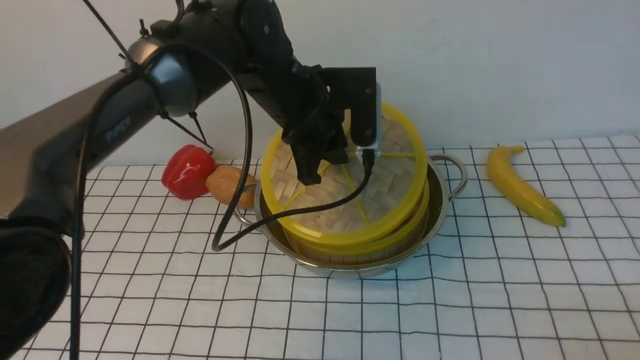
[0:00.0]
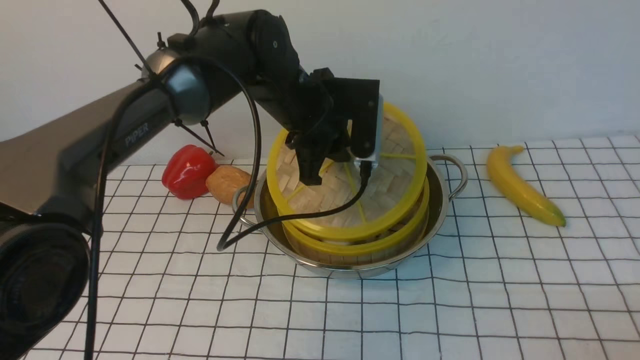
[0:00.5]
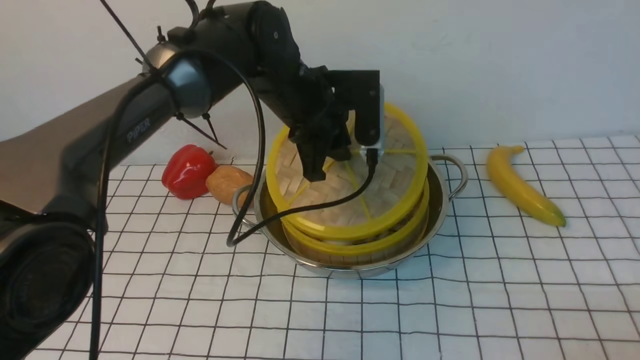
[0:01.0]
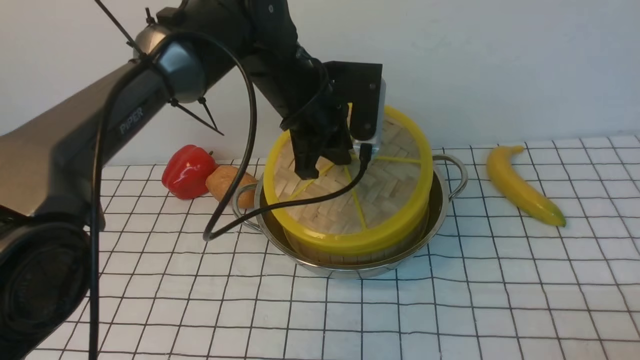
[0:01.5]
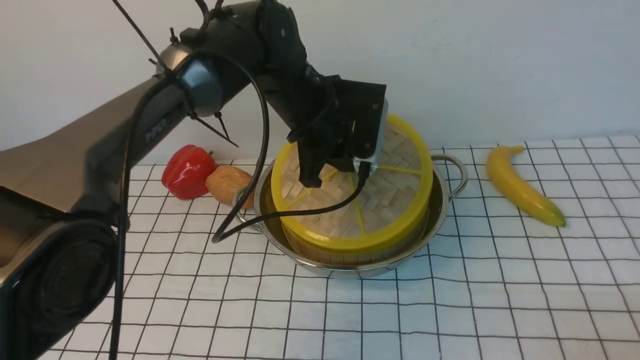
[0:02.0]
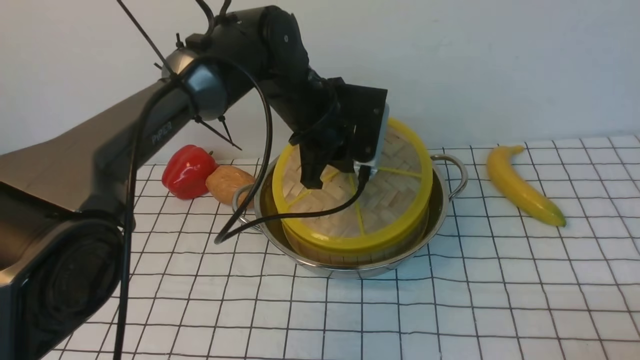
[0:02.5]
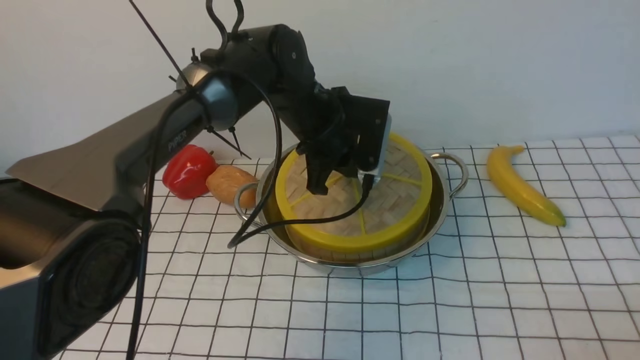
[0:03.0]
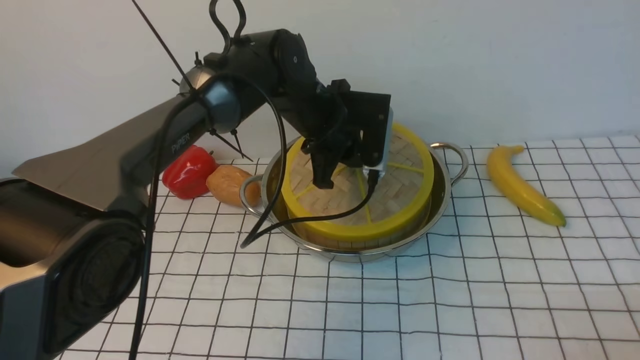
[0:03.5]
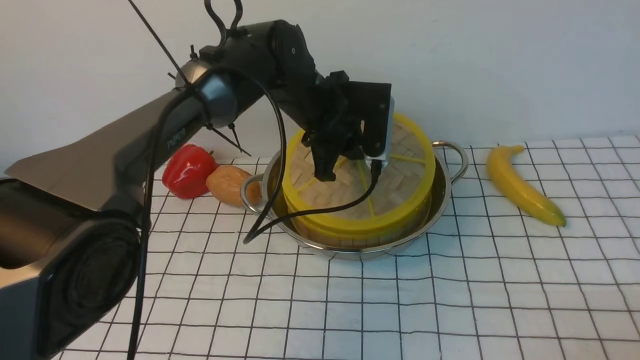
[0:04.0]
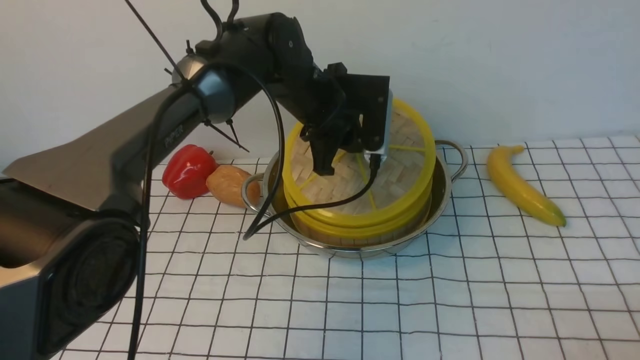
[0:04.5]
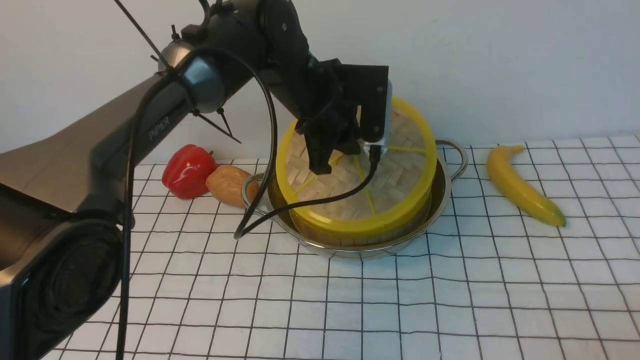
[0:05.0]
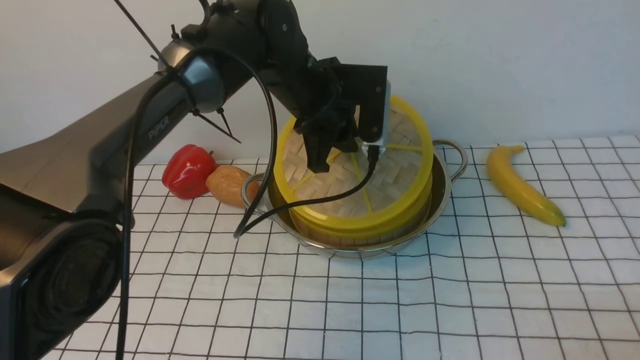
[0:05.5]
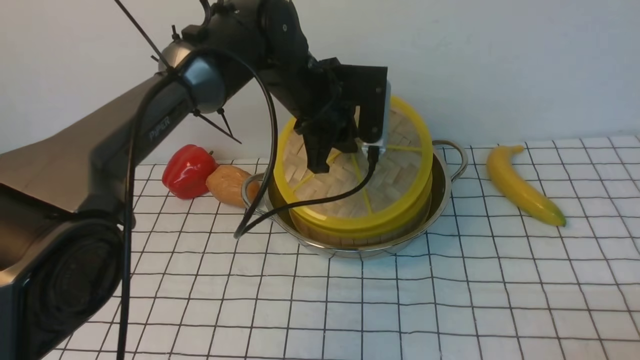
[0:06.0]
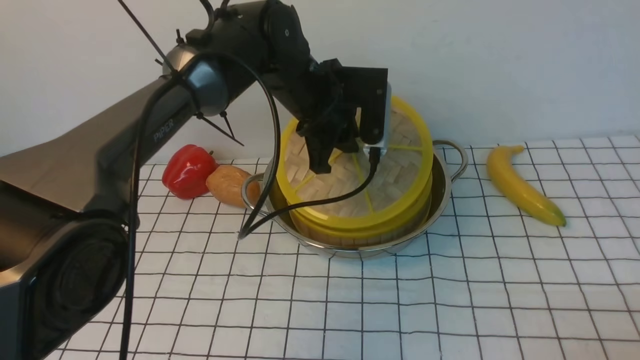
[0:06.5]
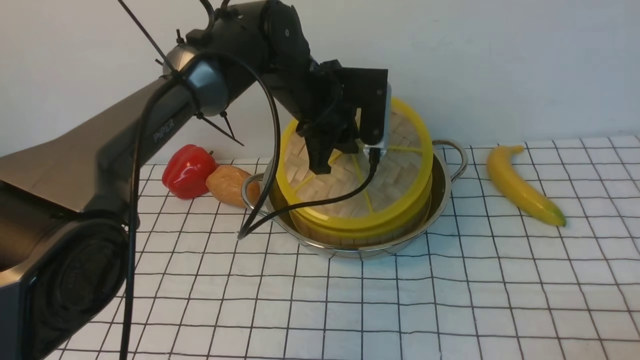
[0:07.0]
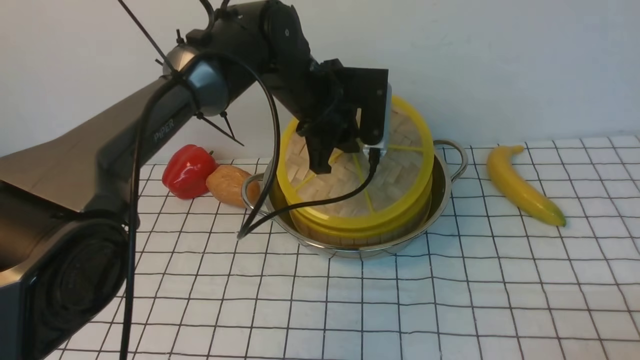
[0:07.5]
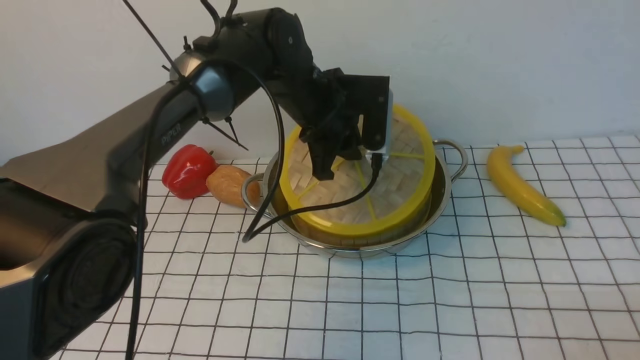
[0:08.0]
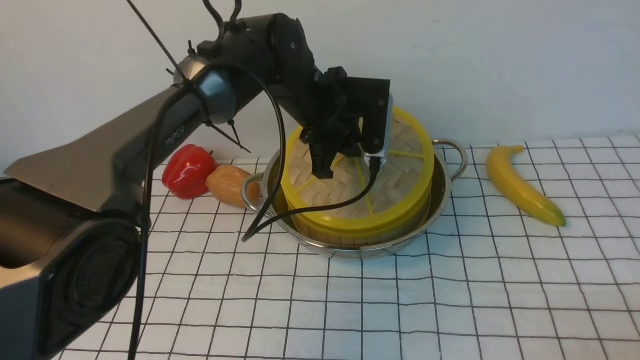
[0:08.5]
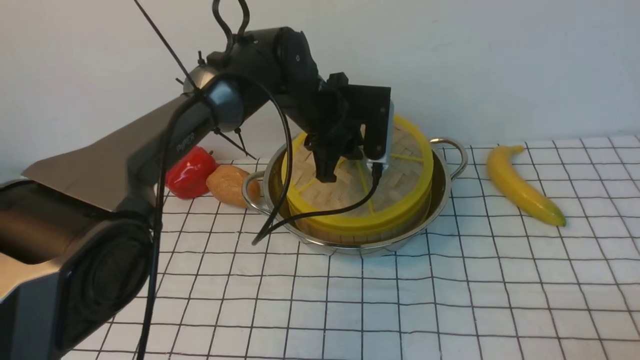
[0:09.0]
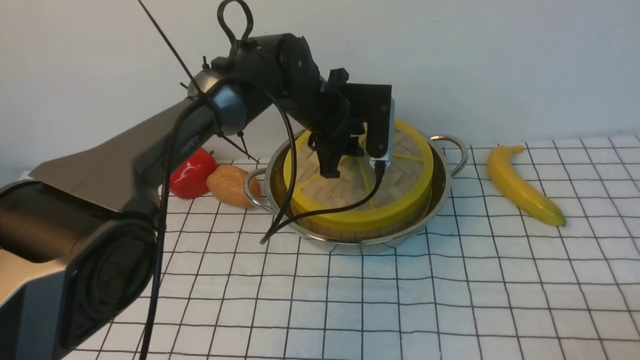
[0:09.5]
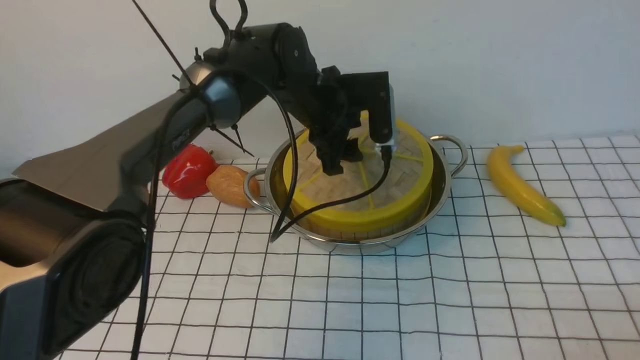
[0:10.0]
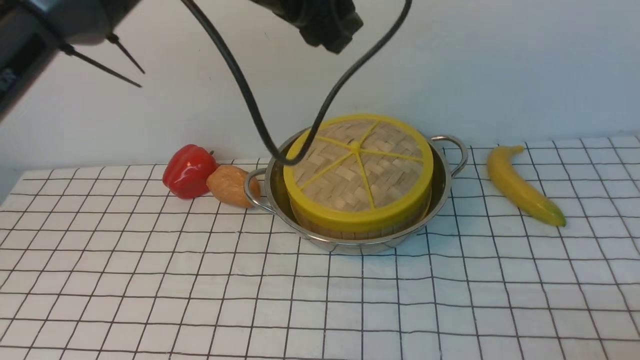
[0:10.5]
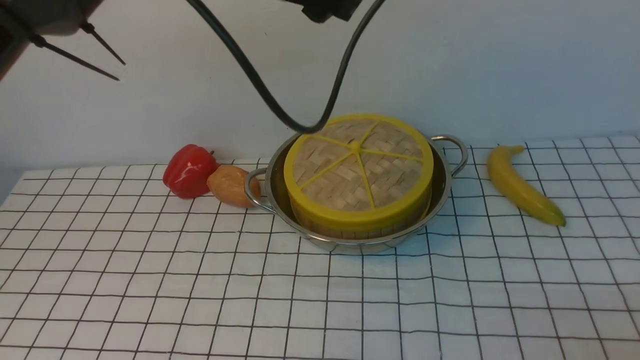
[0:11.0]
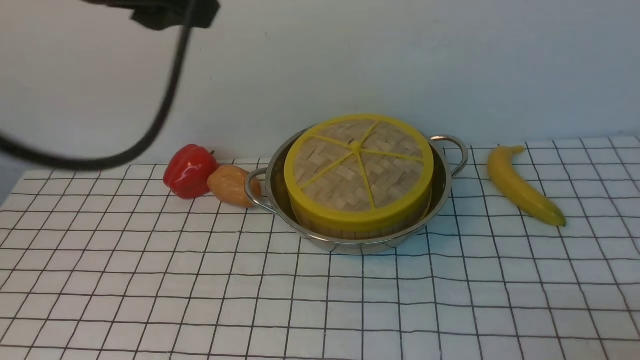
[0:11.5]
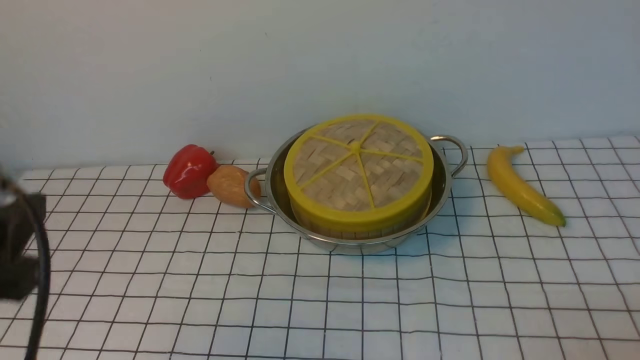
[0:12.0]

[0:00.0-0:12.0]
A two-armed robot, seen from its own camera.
Task of the whole recording: place the steamer in the pot on the white tablecloth, and put the lid on the steamer.
Step, 0:00.0 to 0:10.0: use the left arm to place the steamer lid on the steamer.
0:00.0 to 0:02.0: There are only small adjustments of the grippers.
0:02.0 to 0:06.0: There are only small adjustments of the grippers.
0:06.0 to 0:08.0: The two grippers keep their place.
0:08.0 to 0:10.0: The left gripper opens its fingers.
0:10.0 to 0:12.0: The left gripper heads backward and to the left, covering roughly 40 cm.

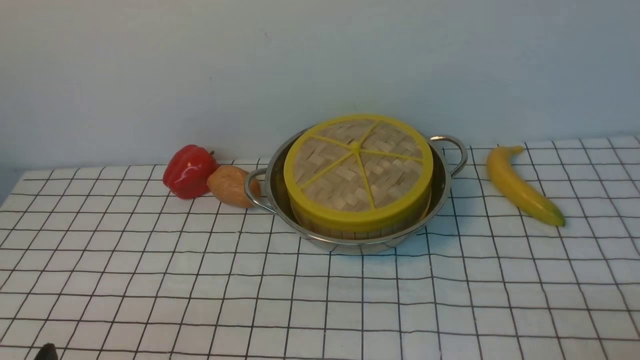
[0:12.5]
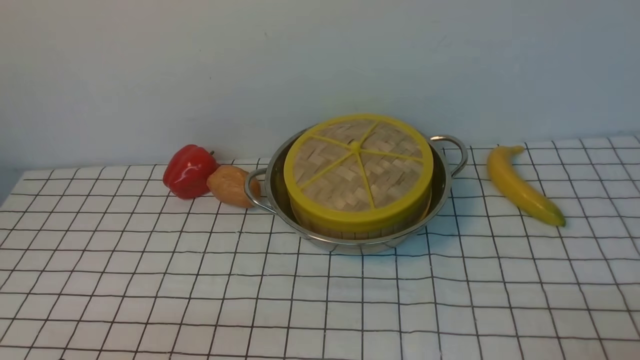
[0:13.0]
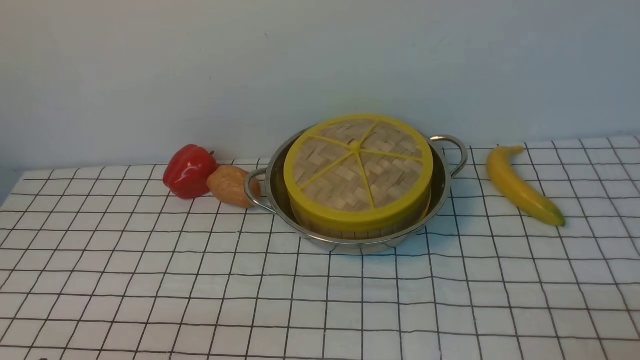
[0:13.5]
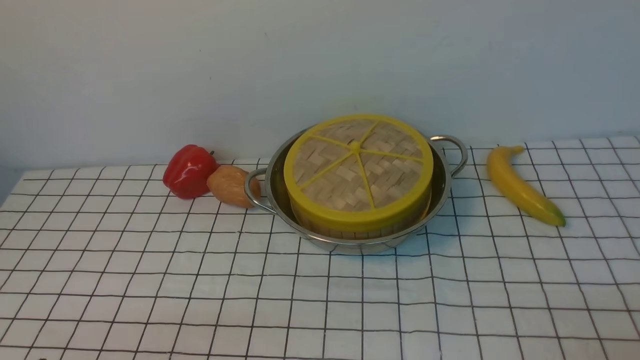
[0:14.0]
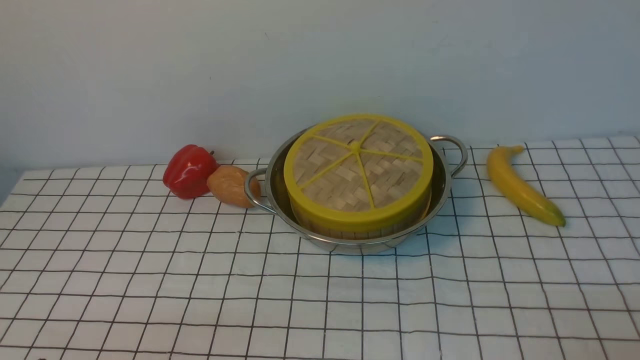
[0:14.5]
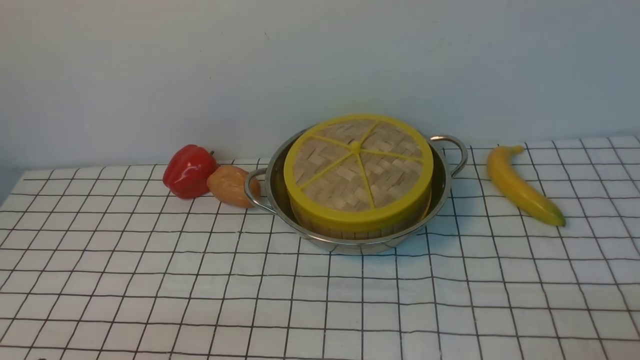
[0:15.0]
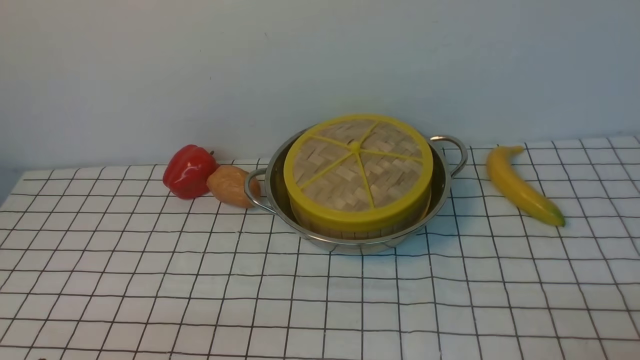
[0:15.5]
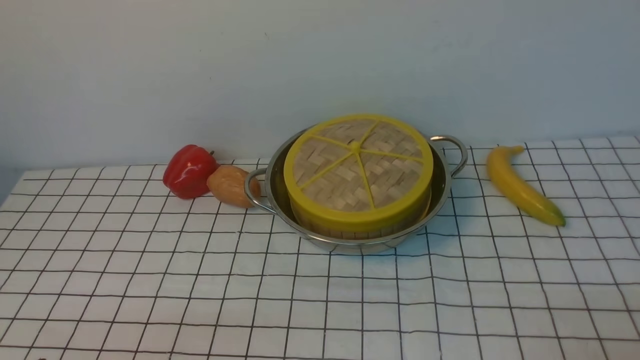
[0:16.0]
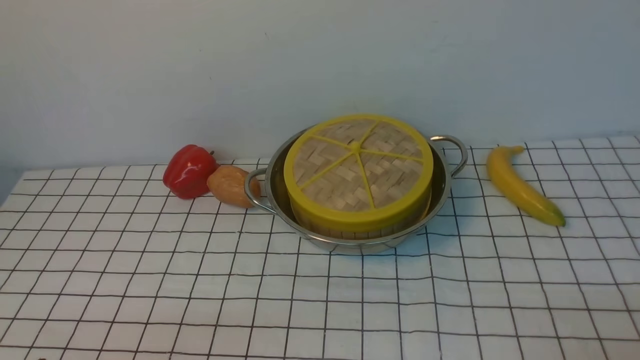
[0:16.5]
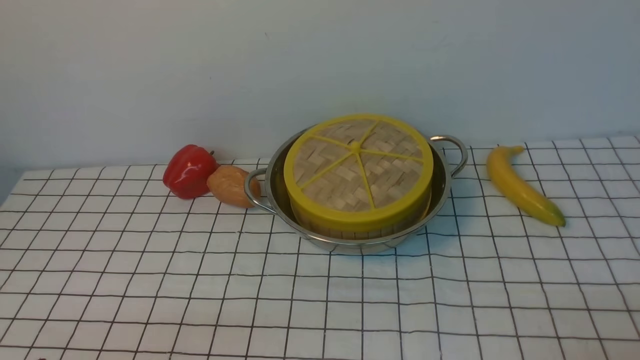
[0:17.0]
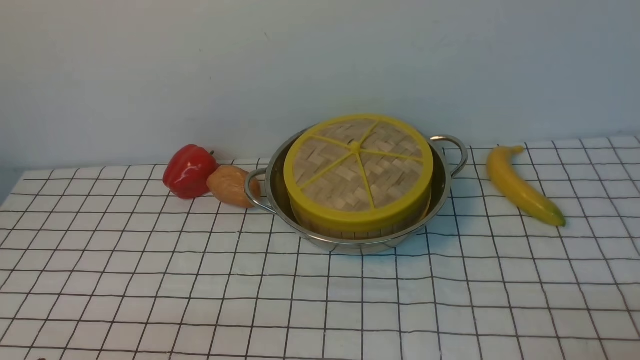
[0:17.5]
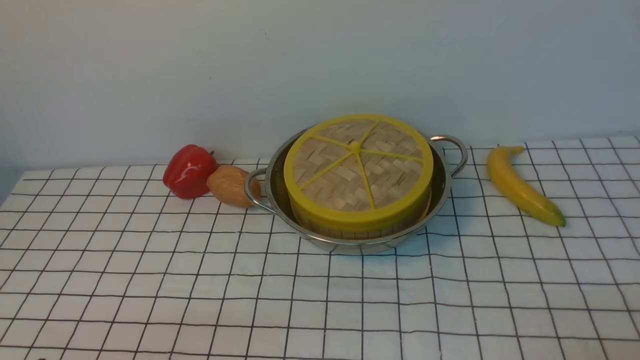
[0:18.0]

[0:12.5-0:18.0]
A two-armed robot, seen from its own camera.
Task of the whole recording: place the steamer in the pot on the white tablecloth, and put the lid on the steamer.
0:14.5 to 0:18.0: Neither gripper changes place.

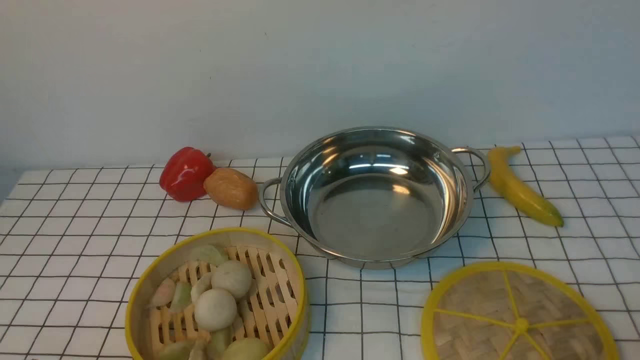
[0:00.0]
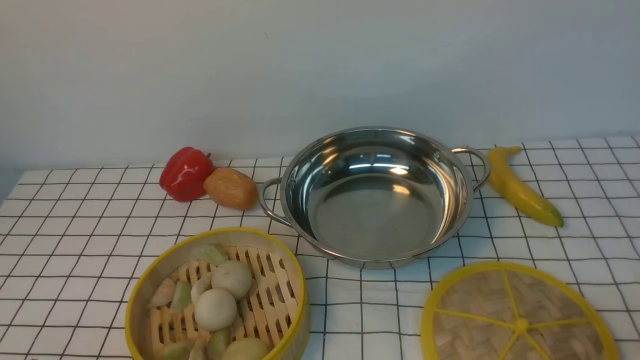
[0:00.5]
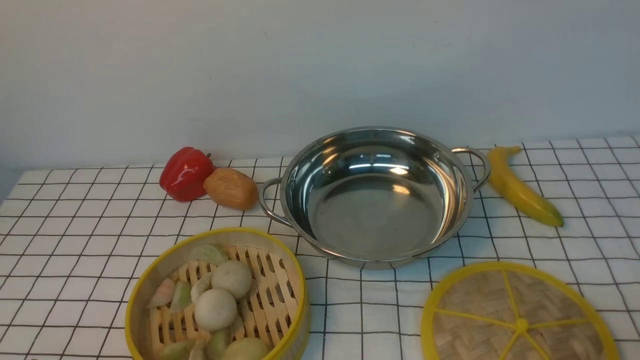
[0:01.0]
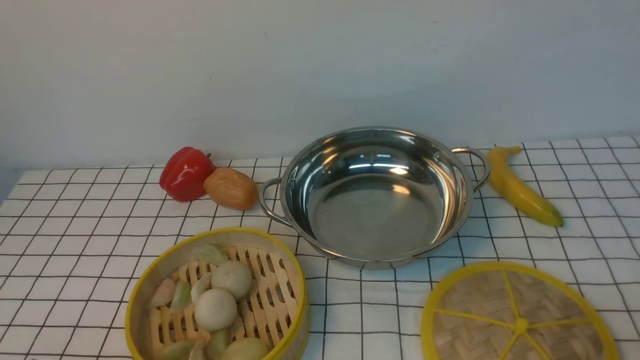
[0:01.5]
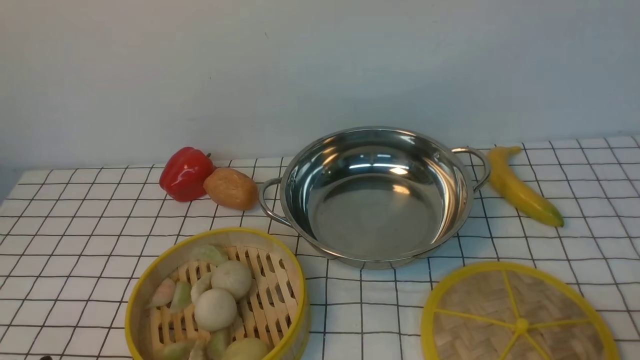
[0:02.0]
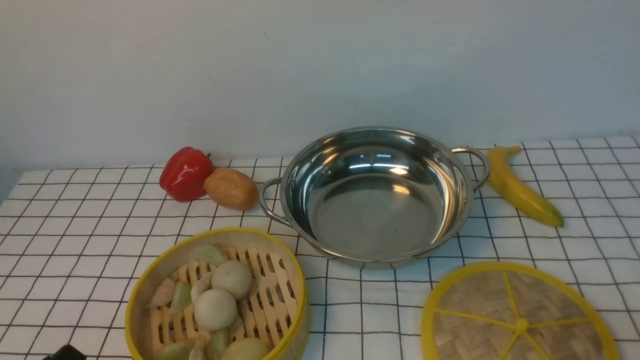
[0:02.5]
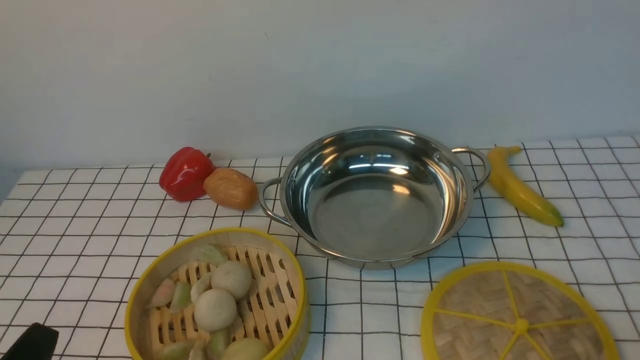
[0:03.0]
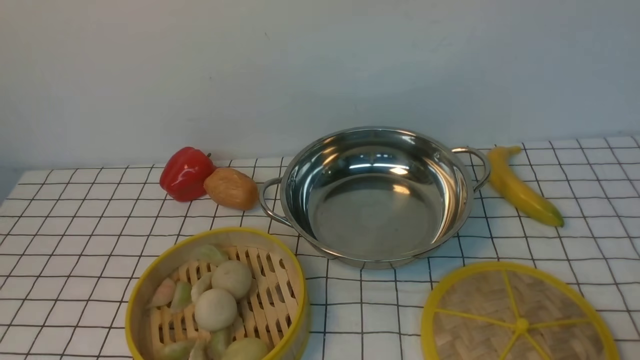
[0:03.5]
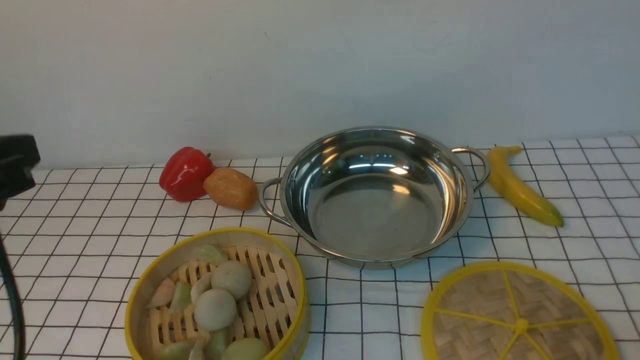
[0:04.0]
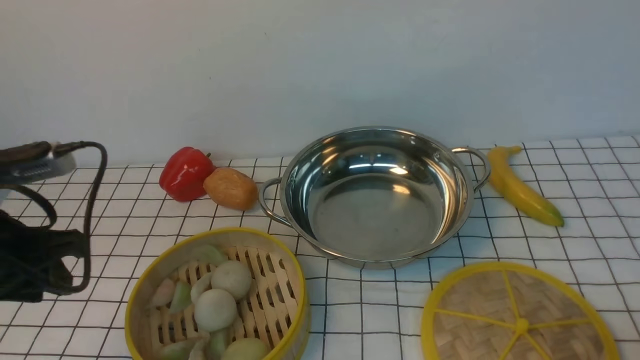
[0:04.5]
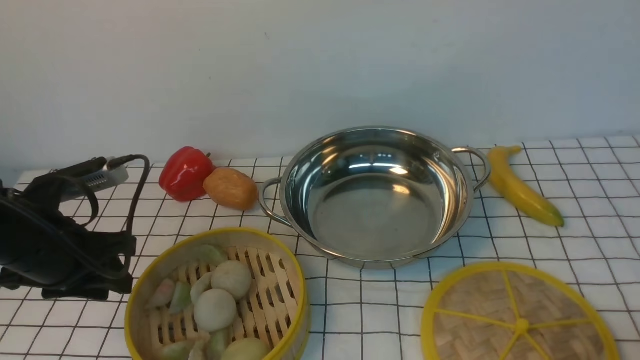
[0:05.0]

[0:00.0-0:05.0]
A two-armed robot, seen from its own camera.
Task of the whole recording: place the steamer in the pot on the white tablecloth, and put the lid on the steamer.
0:02.5 to 0:05.0: The left gripper is displaced forward by about 20 cm.
